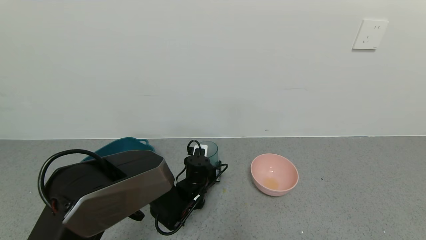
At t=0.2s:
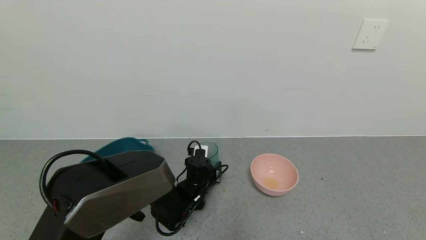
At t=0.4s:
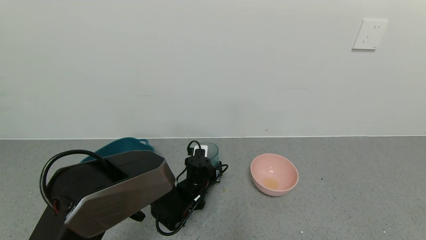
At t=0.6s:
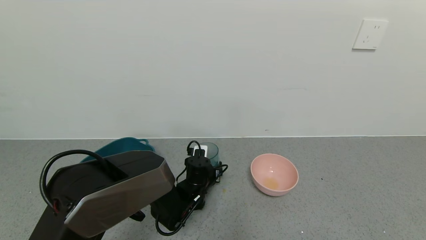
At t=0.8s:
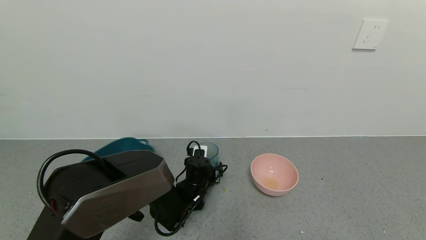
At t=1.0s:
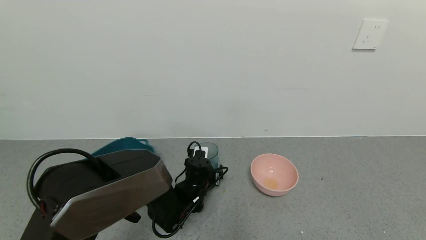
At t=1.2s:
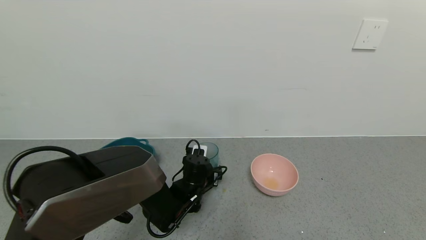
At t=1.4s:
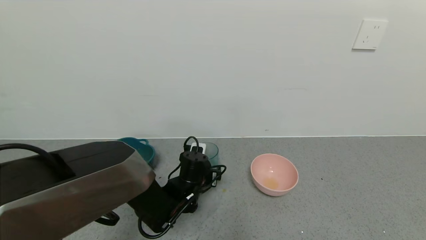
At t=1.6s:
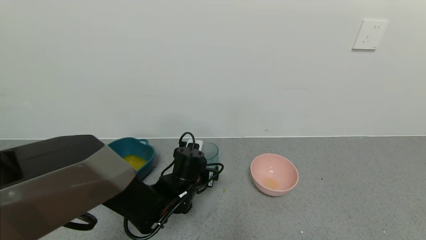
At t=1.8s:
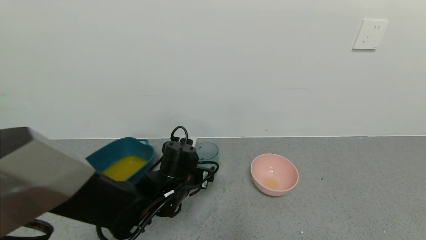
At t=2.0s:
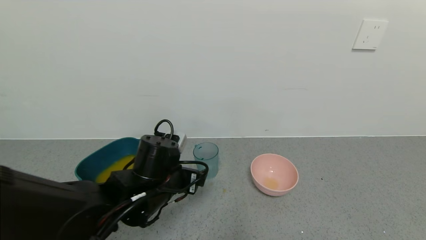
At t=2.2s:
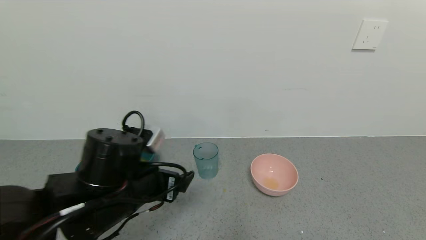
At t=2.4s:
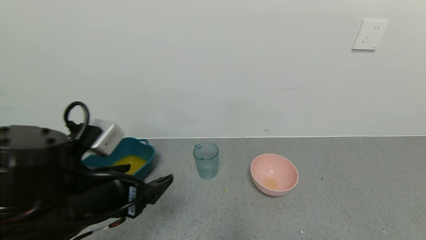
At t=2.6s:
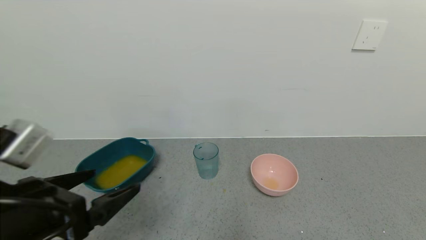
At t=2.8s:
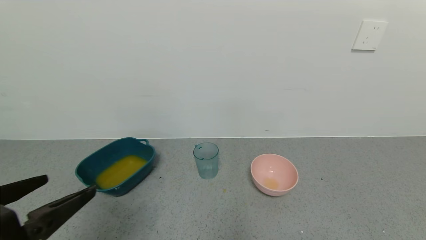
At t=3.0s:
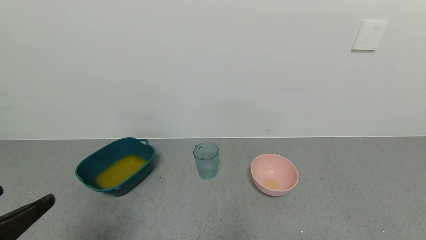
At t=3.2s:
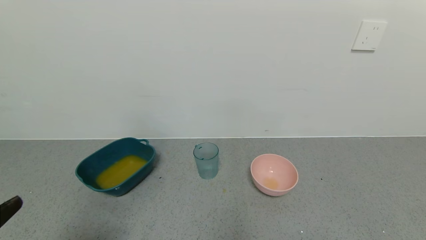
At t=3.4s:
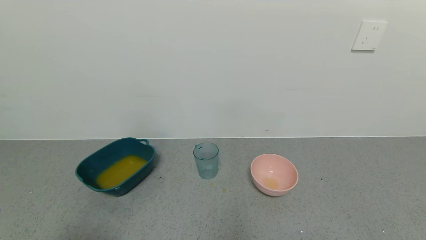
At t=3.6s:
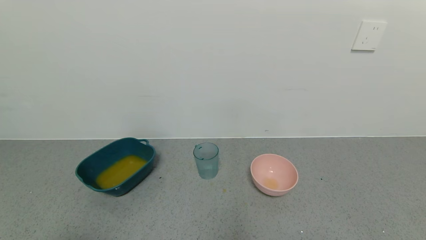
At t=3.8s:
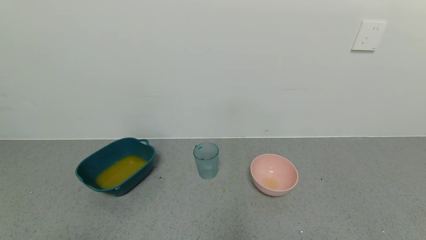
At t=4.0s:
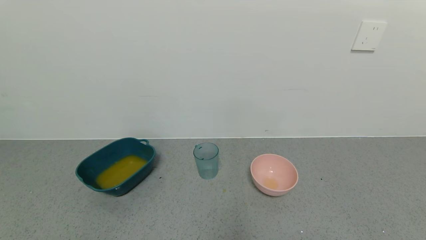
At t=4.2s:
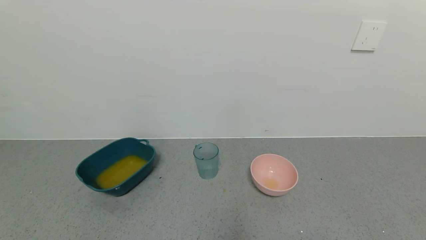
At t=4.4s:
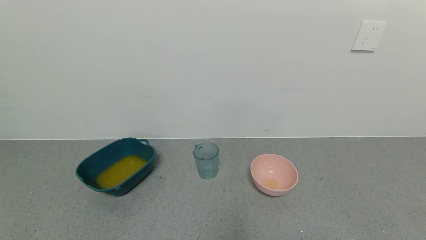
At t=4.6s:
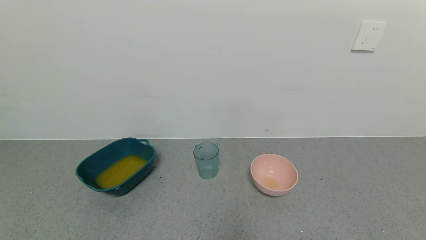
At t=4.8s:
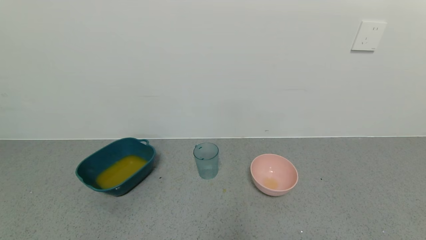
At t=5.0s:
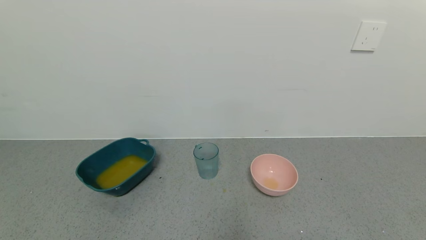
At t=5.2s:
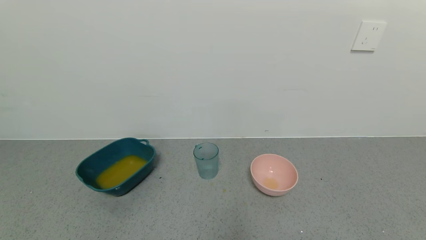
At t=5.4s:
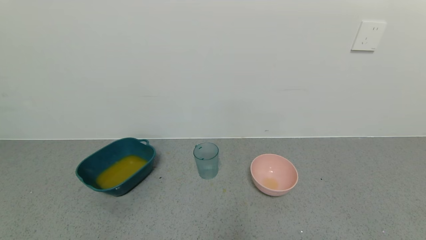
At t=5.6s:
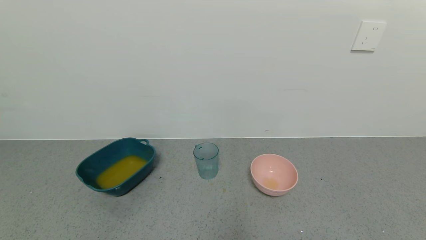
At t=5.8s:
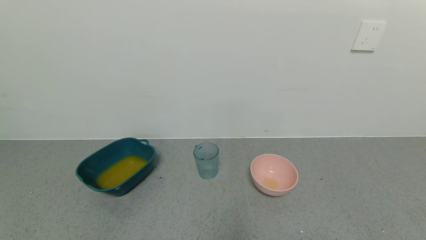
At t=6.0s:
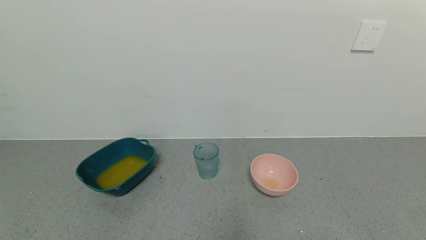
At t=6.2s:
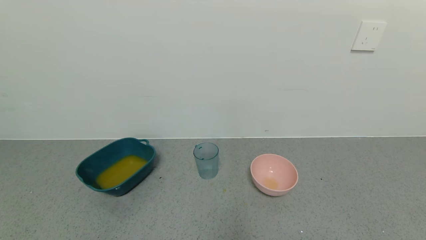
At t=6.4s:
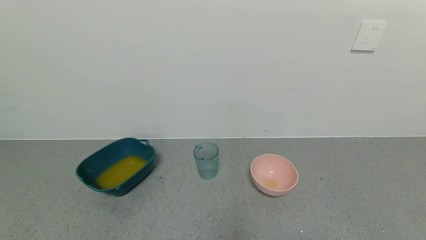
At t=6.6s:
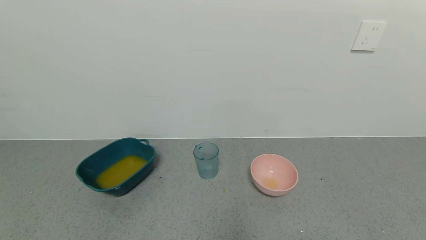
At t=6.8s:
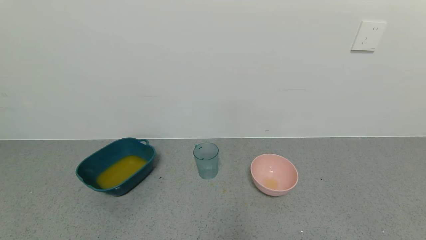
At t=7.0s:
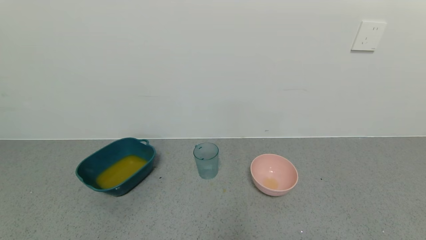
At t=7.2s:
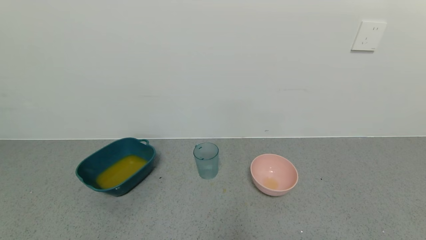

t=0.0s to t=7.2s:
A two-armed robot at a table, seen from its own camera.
Task of the whole recording: use a gripper to pick up the cup and pour the liquid into a bowl or tray.
t=0.0s to t=1.4s: The left gripper opens its fingers.
t=1.4s to t=2.8s: The left gripper is displaced backward, upward and to the left by some 35 cm.
t=2.8s to t=4.4s: The left gripper goes roughly 15 cm backward.
